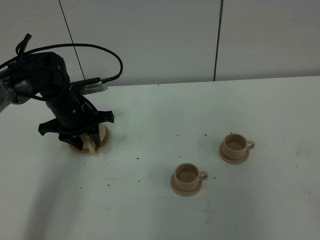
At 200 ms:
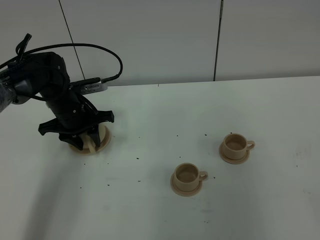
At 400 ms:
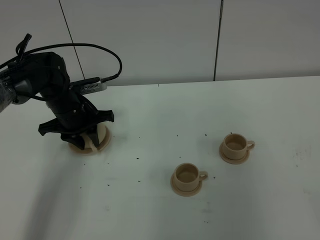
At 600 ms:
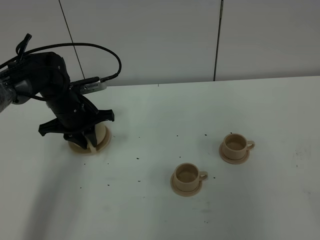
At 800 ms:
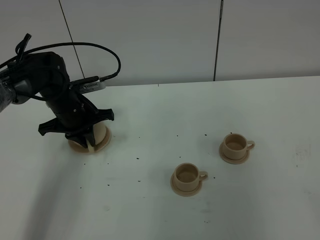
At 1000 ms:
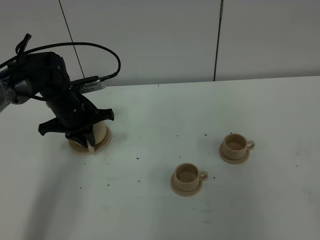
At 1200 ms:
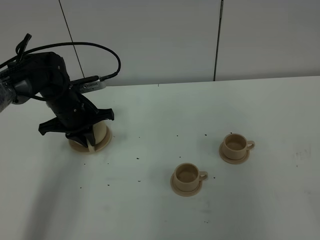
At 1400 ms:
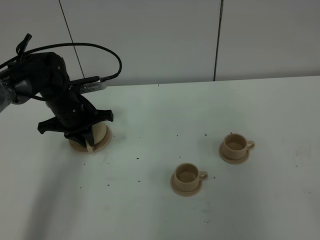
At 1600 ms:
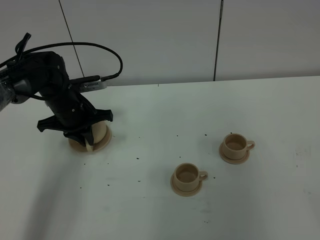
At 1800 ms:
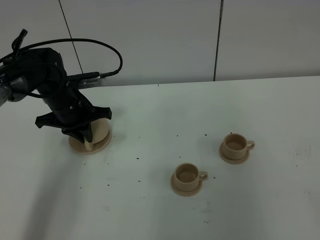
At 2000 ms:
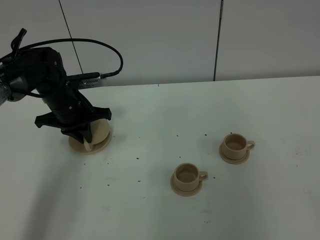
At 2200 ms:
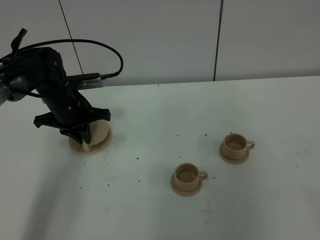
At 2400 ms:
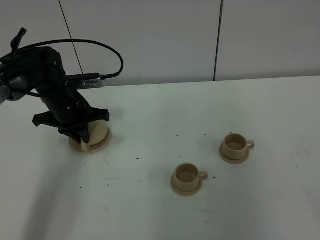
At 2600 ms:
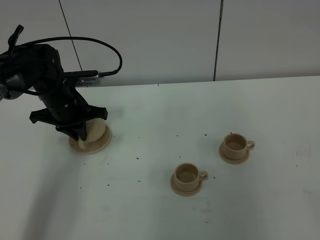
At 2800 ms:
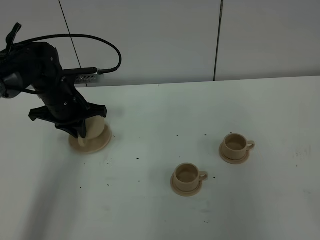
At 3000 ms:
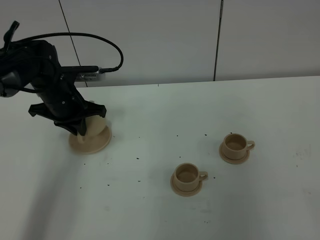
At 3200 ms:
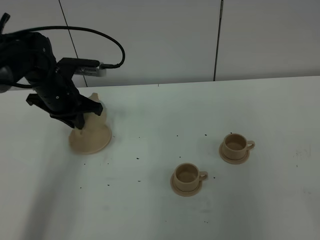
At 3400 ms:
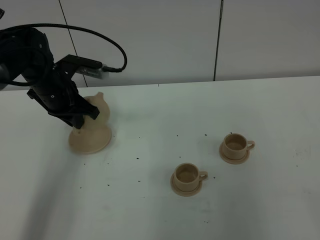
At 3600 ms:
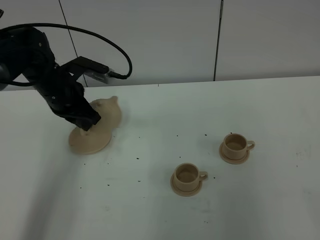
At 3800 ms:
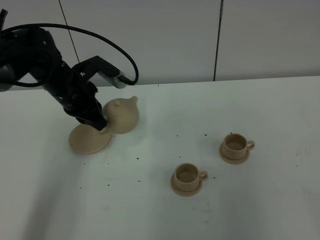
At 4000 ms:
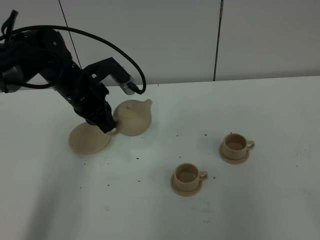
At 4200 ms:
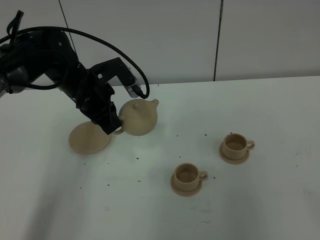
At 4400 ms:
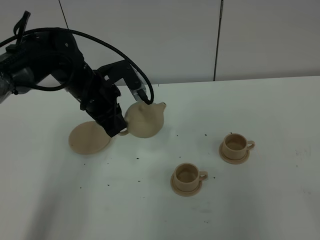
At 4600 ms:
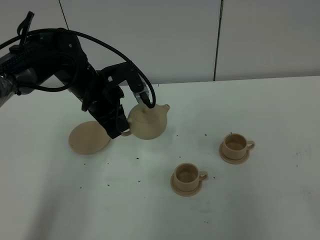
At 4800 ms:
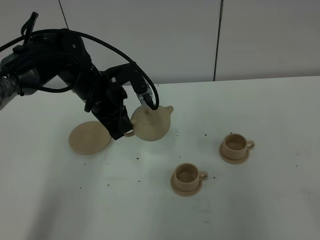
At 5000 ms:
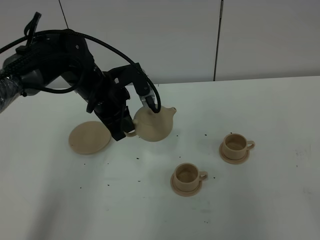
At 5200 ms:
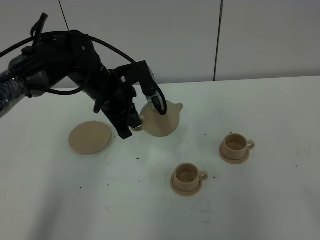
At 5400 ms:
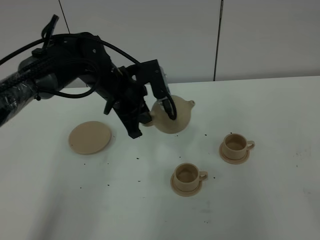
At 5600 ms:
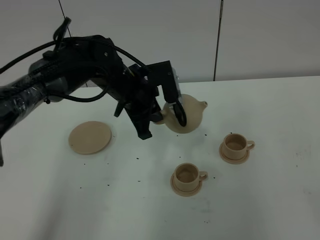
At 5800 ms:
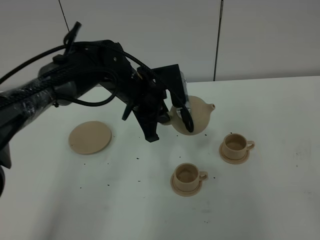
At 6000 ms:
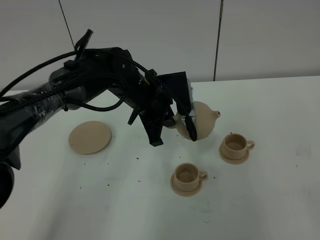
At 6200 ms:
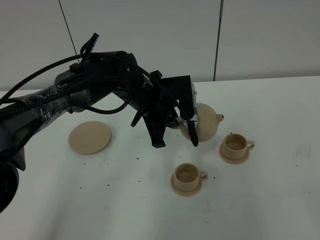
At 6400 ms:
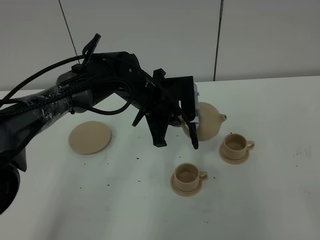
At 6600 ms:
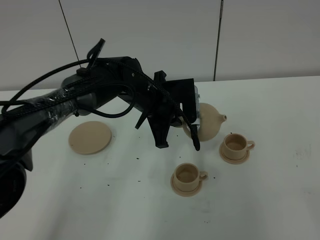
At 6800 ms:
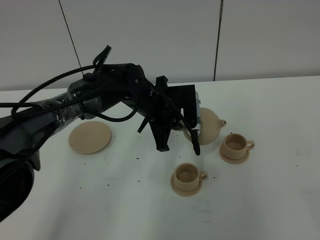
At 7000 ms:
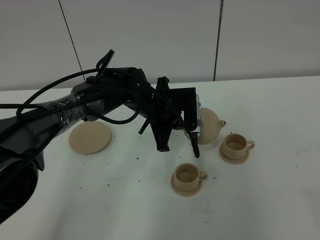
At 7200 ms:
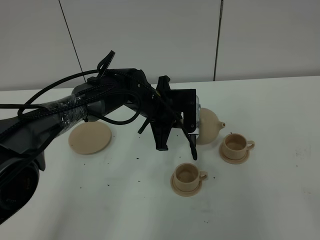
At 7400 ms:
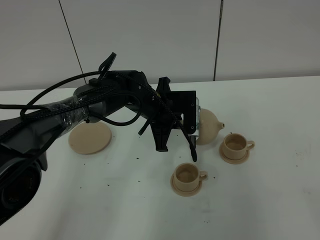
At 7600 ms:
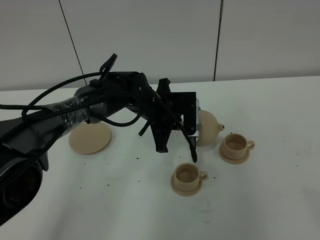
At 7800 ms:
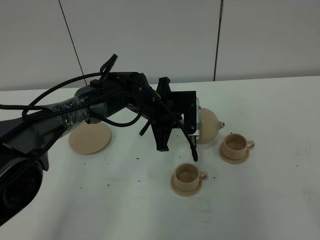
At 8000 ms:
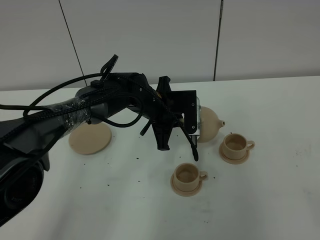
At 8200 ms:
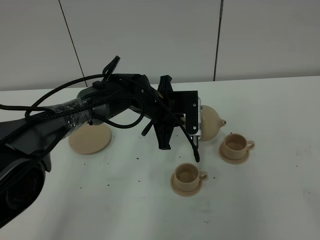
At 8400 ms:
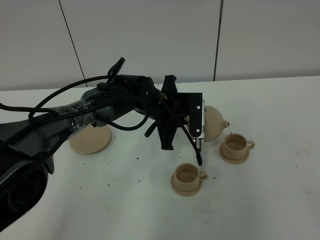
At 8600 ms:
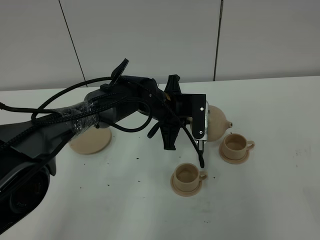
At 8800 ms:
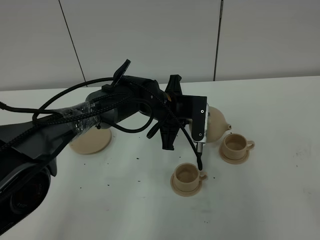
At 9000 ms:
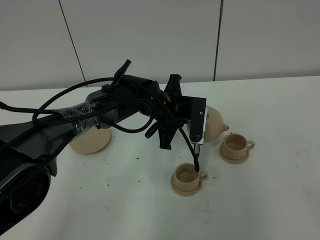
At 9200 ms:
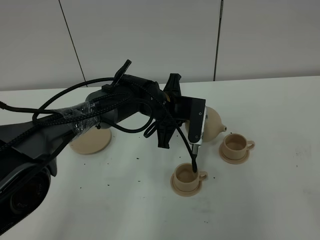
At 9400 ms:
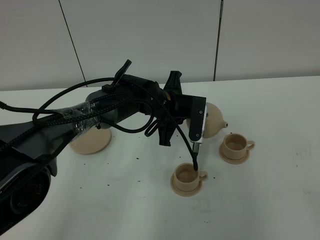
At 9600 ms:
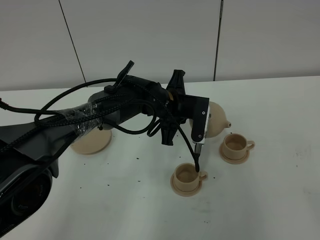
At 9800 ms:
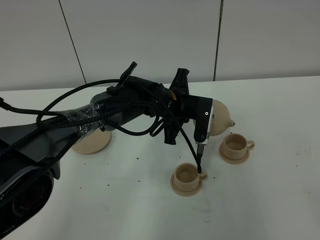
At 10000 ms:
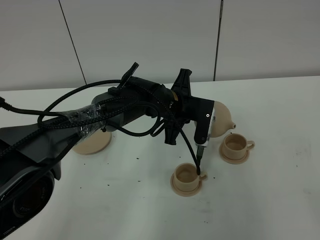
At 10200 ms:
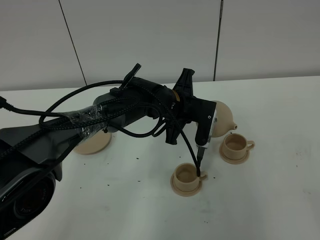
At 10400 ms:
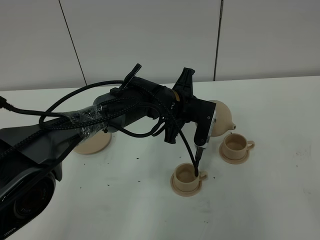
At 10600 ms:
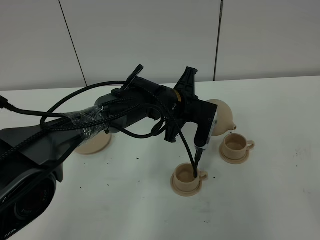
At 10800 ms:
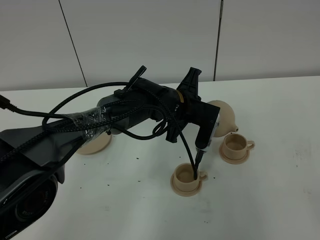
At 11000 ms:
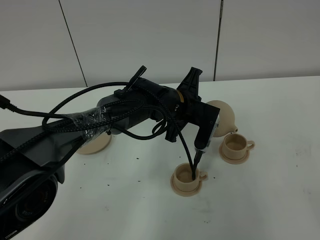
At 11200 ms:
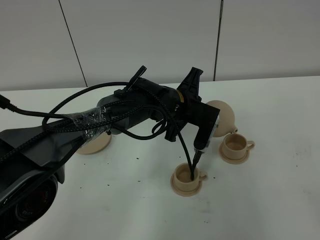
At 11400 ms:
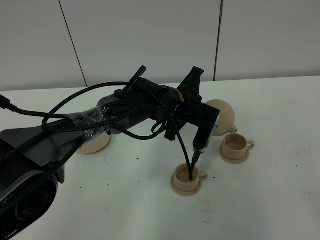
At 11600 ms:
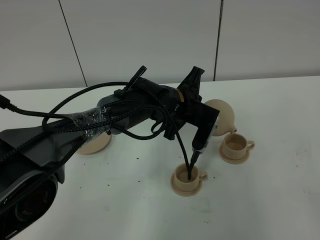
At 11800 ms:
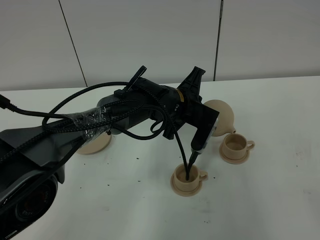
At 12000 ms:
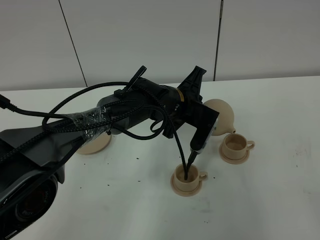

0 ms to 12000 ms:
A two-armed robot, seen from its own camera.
Task of the whole recording: grasp the brown teapot and pour the tea into the two brown teacups one by one, put the brown teapot back in its original place.
Step, 0 ms to 2600 ms: Pick up the teapot with the left gripper.
0 ms to 1600 ms: The left gripper closes.
1600 ms to 3000 ms: The grippers move only a little.
3000 ms to 4400 ms: The left gripper shifts some 5 cm to the right.
4400 ms to 6000 ms: The left gripper is displaced to the right by roughly 10 cm.
6000 ms to 7600 ms: The left gripper changes place by roughly 5 cm.
7600 ms to 9000 ms: The grippers stay close to where they were, moving slightly.
9000 ms to 10400 ms: The grippers move only a little.
10400 ms to 12000 ms: The grippers stay close to where they were, moving slightly.

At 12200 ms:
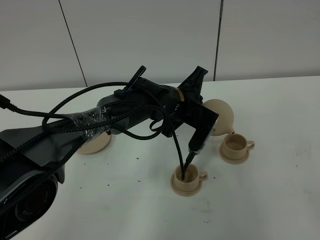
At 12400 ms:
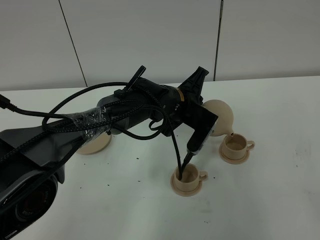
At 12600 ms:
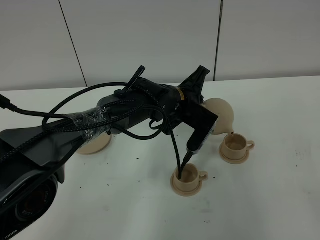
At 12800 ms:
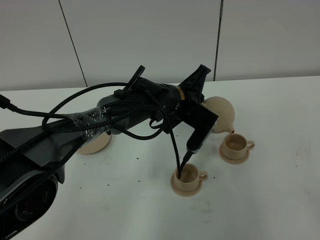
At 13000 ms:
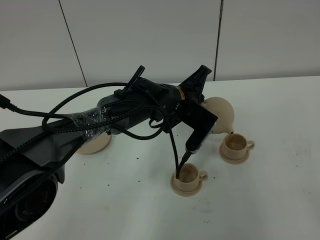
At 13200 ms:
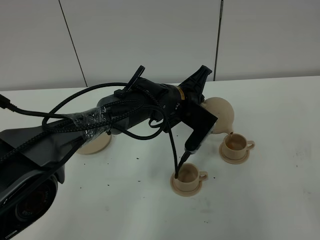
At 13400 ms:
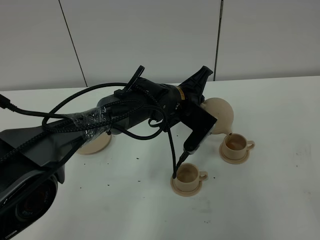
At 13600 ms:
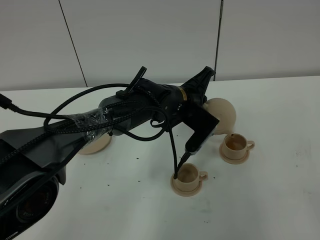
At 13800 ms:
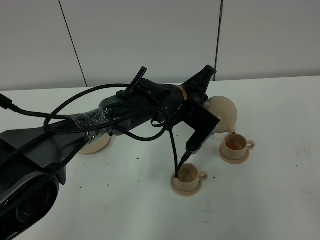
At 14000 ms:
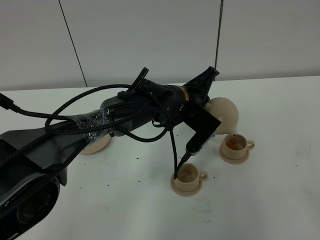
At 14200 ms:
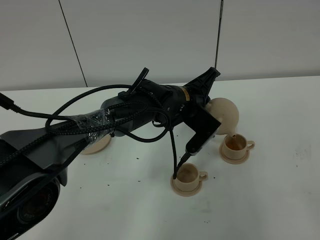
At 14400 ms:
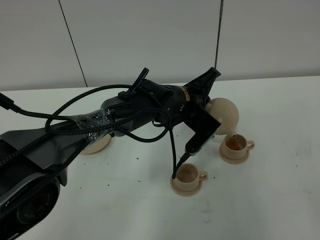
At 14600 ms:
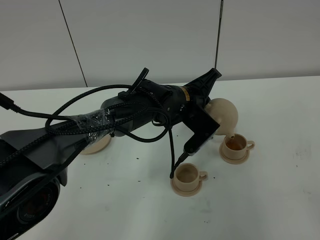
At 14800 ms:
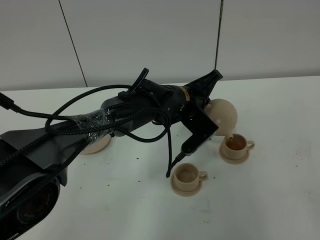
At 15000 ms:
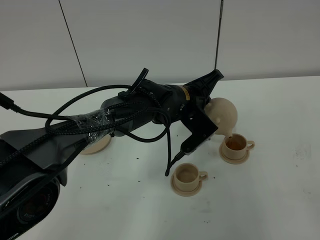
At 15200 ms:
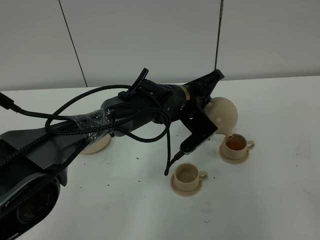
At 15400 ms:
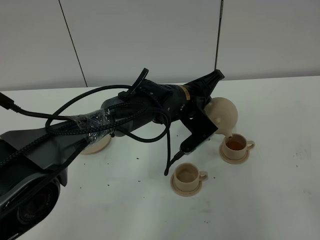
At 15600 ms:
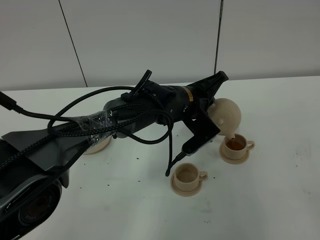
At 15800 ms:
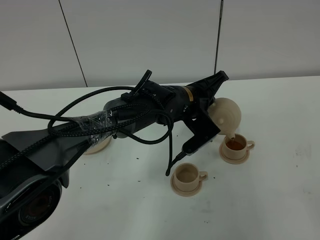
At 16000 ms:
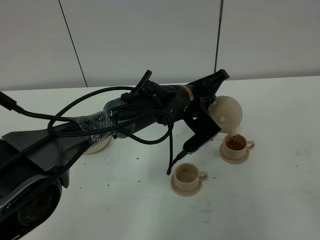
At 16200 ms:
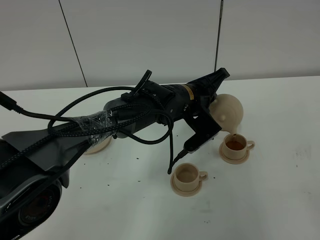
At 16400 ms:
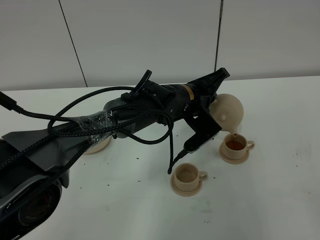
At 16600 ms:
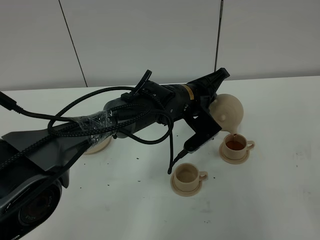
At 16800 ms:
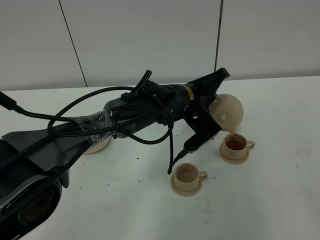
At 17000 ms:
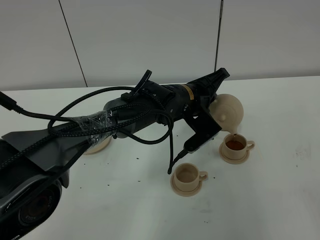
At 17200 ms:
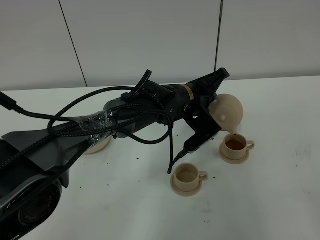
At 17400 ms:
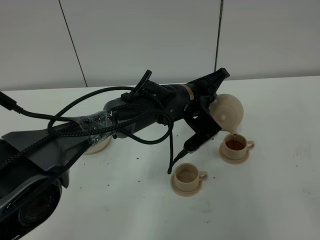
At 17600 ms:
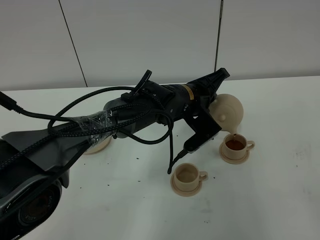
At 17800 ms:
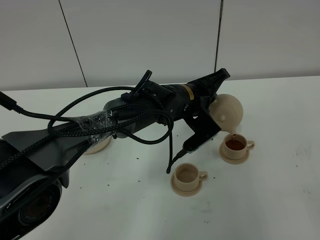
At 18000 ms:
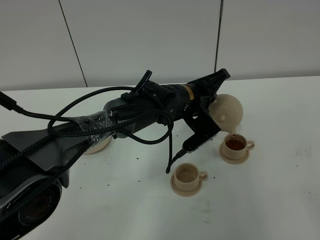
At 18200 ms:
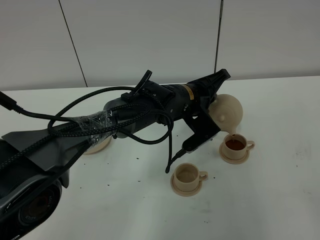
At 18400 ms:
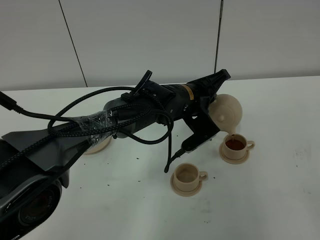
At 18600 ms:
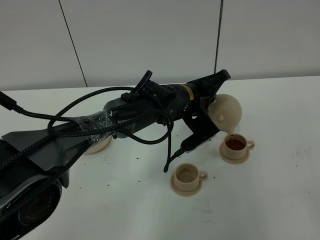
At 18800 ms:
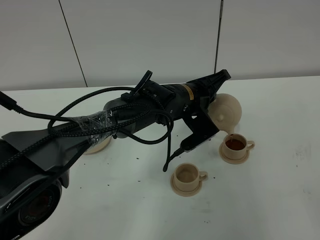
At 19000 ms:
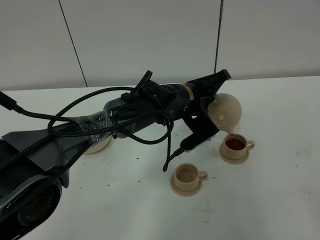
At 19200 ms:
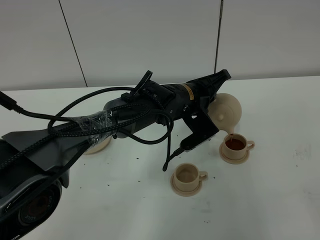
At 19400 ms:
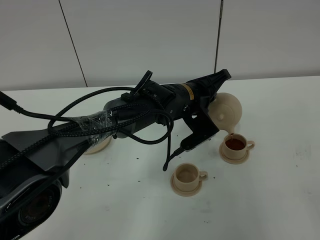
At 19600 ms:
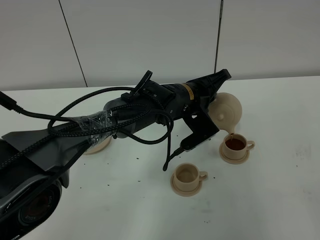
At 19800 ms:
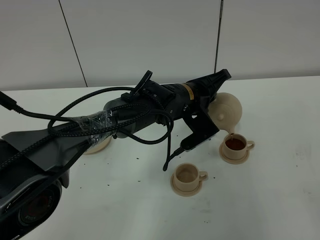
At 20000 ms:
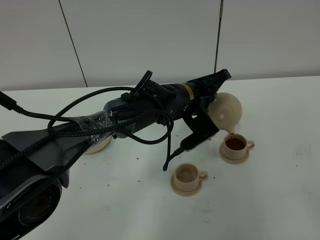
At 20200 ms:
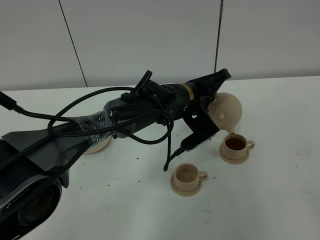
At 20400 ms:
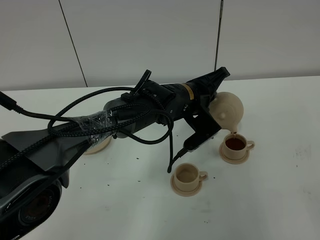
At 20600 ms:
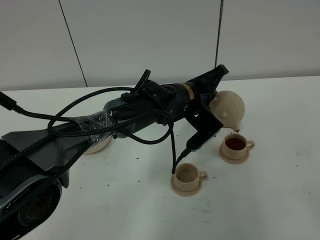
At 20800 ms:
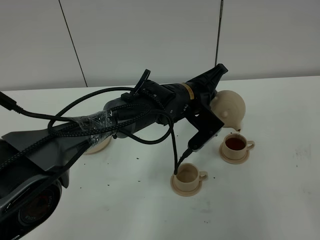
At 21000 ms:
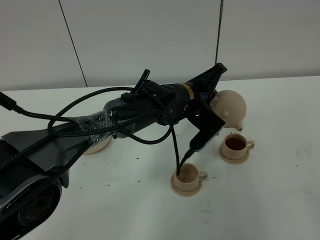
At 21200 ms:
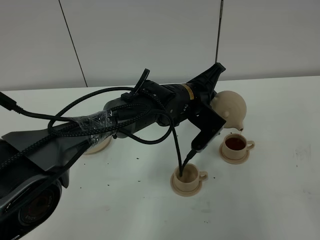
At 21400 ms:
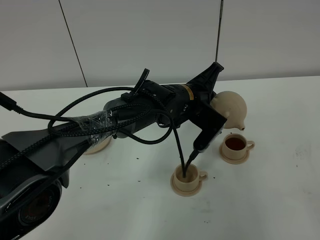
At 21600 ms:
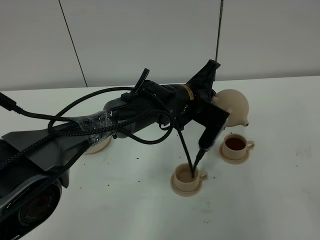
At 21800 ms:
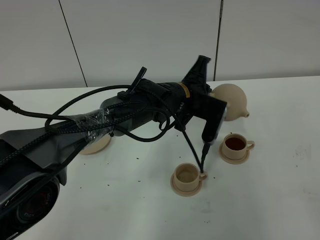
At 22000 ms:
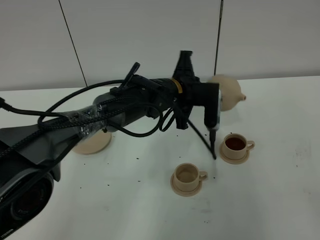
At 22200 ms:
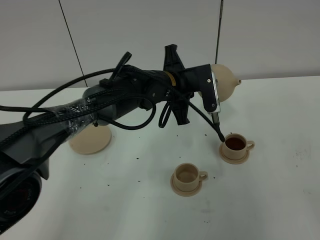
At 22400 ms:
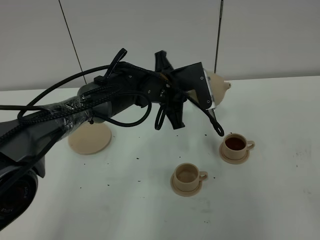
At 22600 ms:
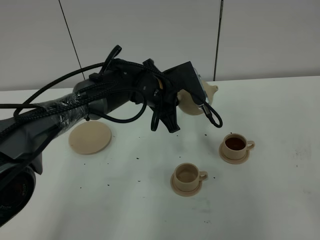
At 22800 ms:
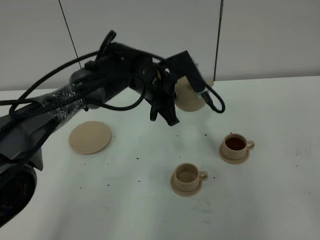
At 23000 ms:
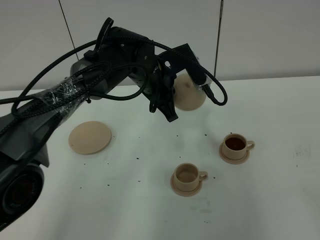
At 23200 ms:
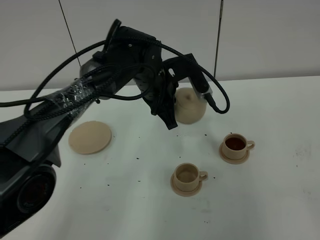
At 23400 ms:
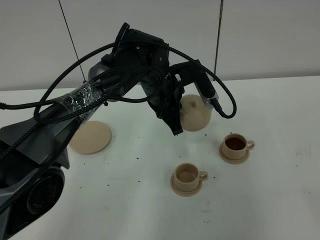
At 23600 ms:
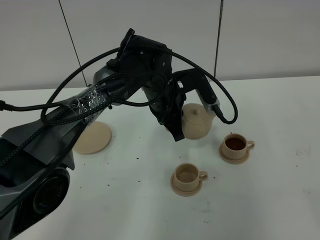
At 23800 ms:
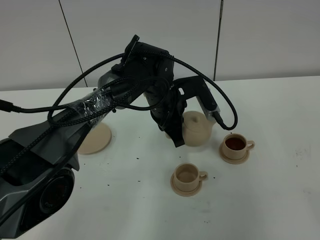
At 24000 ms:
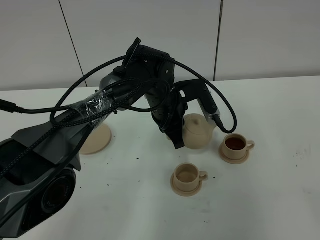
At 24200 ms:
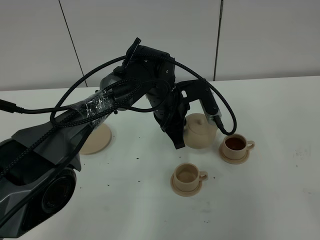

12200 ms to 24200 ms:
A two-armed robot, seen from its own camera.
Task of the whole recording: grasp the brown teapot and pour the tea into the two brown teacups one by one, put the brown teapot back in its original place.
12200 ms to 13800 ms: There are only small adjustments of the grippers.
13800 ms to 15200 ms: The grippers make only small movements.
15200 ms to 16600 ms: Neither gripper changes place.
16600 ms to 18200 ms: Both grippers stay put.
18200 ms to 19800 ms: Both grippers stay put.
19800 ms to 21200 ms: The grippers make only small movements.
21200 ms to 22600 ms: The left gripper heads to the left, covering some 5 cm.
